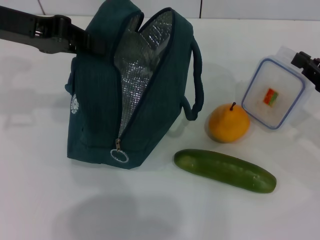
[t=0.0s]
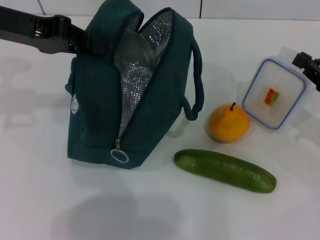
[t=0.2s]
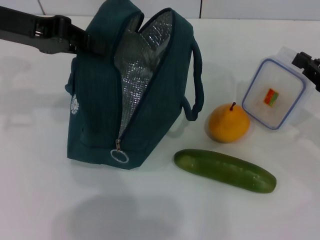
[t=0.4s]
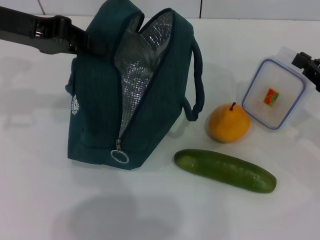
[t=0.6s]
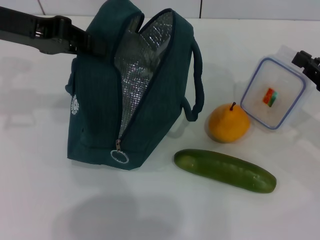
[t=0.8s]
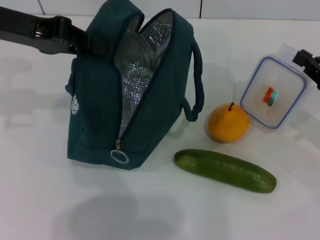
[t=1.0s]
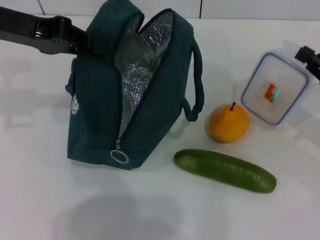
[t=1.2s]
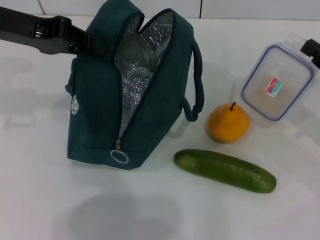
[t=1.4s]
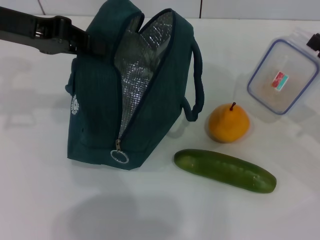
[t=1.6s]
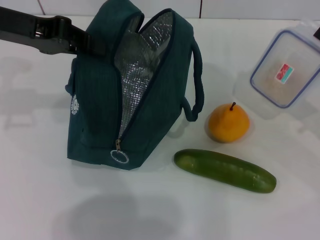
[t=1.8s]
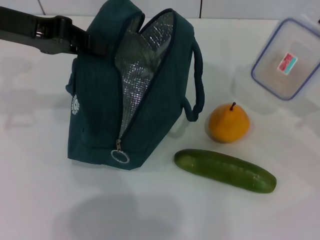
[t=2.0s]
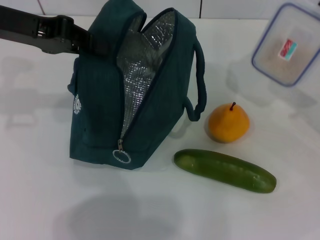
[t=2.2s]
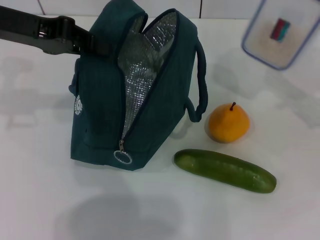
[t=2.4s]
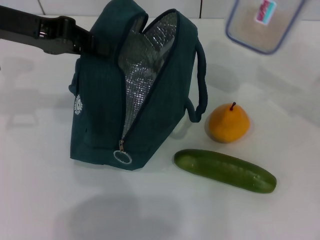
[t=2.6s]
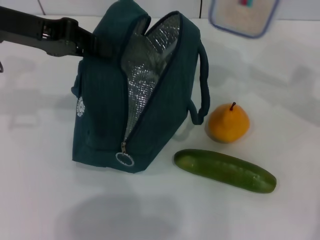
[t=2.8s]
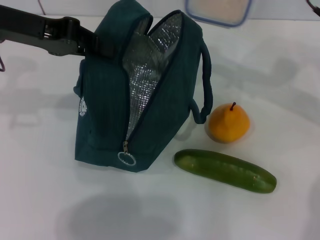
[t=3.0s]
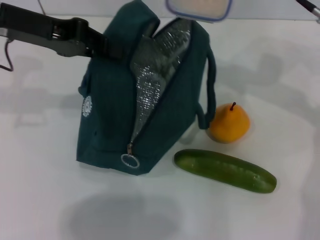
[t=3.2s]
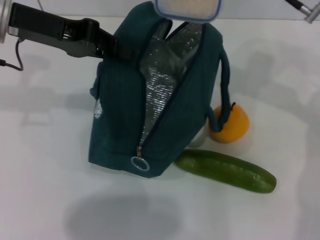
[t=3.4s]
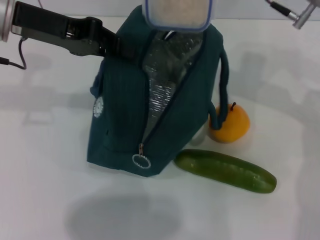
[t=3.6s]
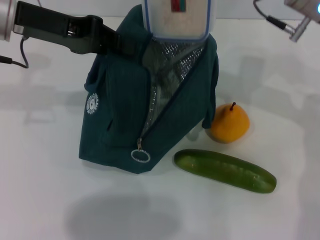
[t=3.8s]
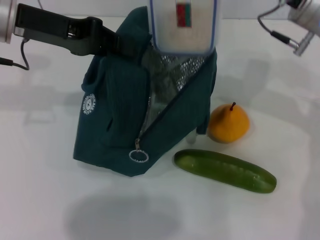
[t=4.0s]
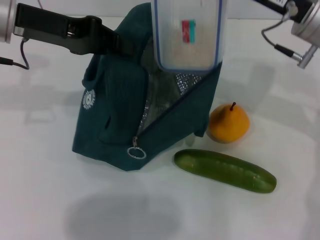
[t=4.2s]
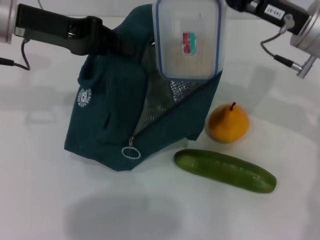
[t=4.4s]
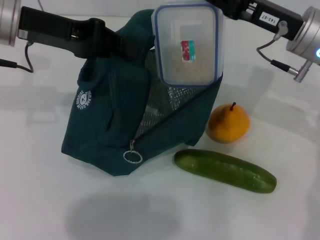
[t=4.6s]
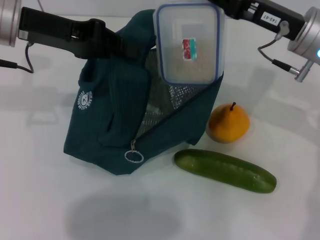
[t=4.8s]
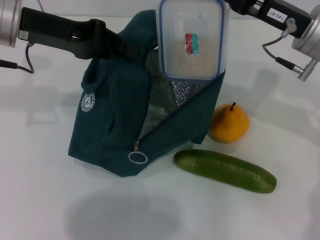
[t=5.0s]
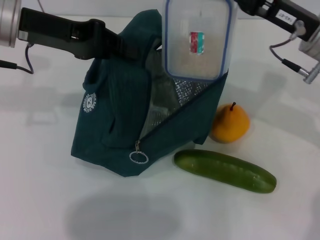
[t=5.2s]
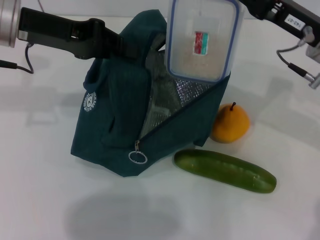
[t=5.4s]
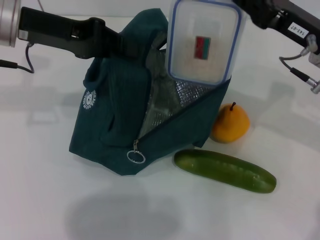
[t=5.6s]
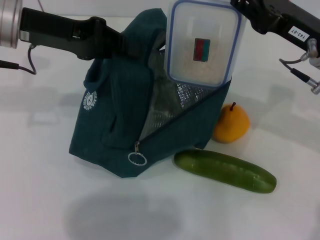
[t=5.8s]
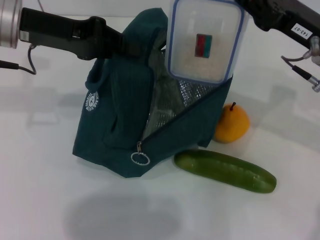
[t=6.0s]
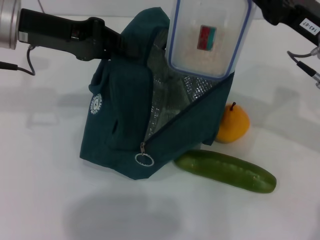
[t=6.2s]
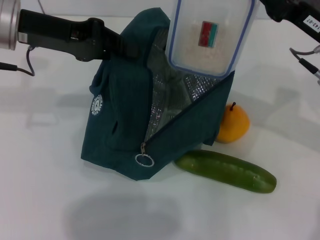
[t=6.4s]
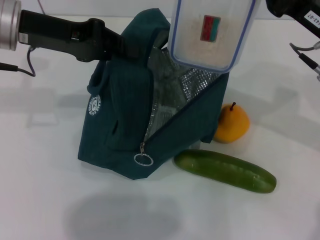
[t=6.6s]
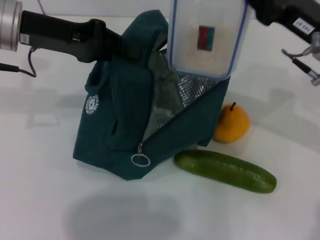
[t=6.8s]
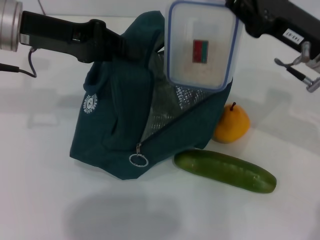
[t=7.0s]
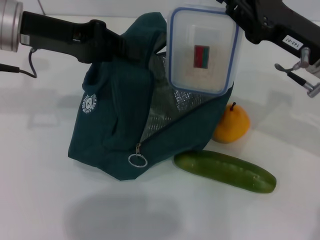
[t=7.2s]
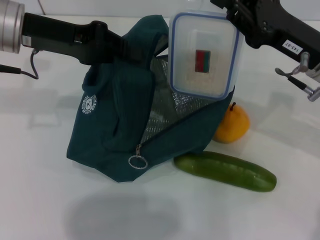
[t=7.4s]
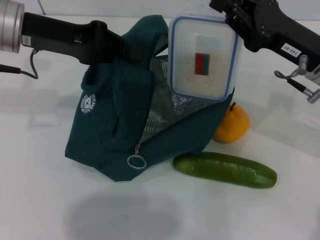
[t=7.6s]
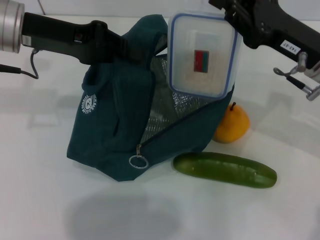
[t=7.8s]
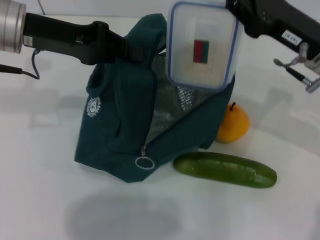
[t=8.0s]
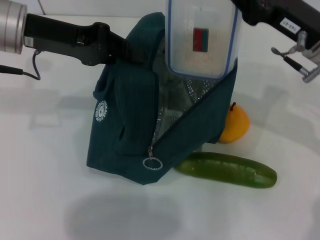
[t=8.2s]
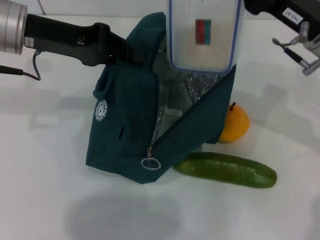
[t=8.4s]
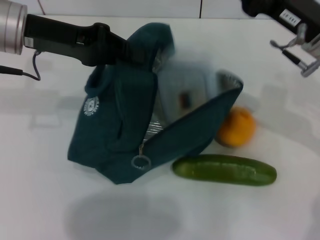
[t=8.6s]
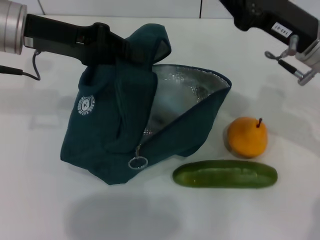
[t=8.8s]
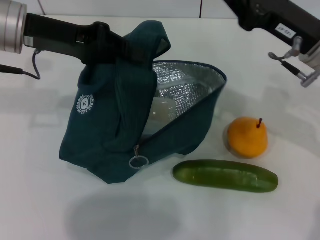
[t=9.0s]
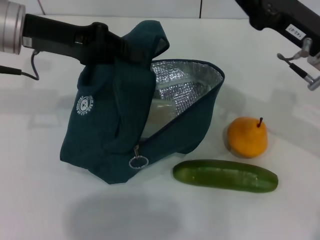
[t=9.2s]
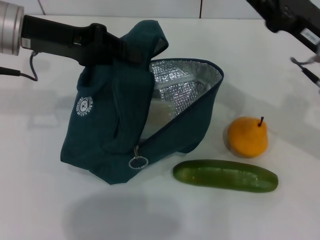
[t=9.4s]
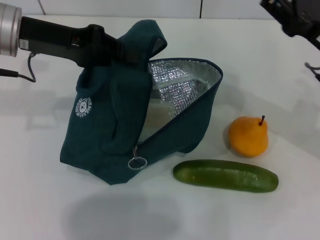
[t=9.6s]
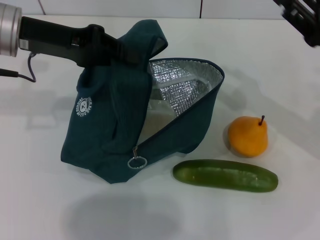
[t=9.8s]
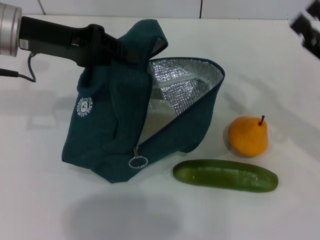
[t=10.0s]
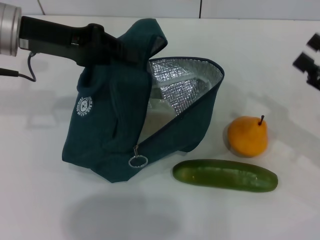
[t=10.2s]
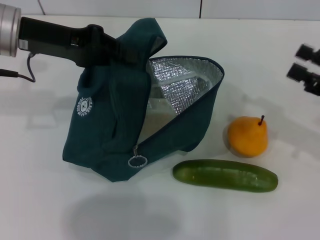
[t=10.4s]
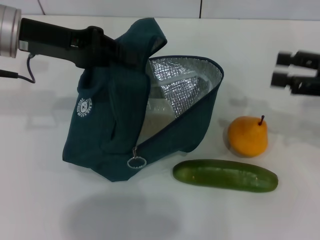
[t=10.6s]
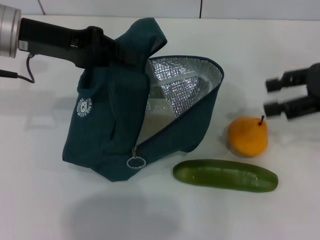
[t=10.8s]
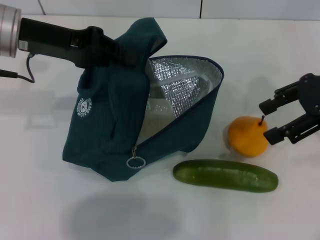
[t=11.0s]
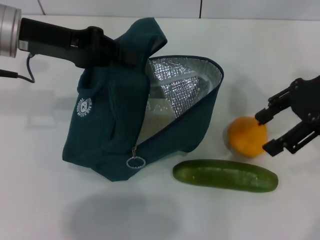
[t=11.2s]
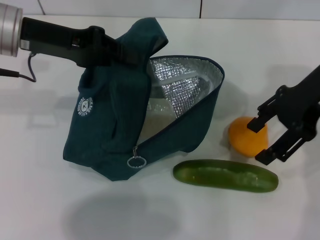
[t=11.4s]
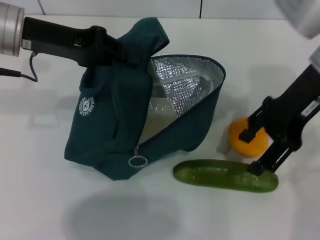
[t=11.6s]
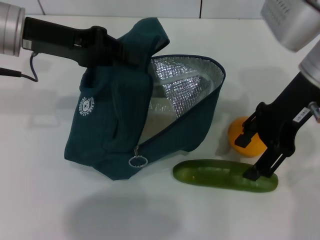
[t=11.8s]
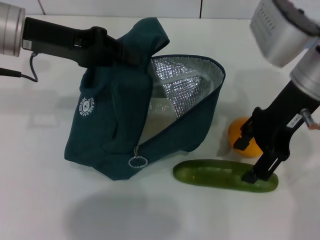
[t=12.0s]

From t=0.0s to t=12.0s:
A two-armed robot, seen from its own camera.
Step, from t=0.0s to t=9.6s: Place the lunch box into the lunch bag with your right hand.
From t=0.0s to t=1.6s: There are only small adjustments of the grippers.
From t=1.6s to t=3.0s: The right gripper shifts approximately 20 cm upward, to the left and forward.
From t=3.0s to t=4.4s: The right gripper shifts by roughly 5 cm.
From t=4.4s to t=6.0s: The grippers move only a little.
From t=6.0s to t=7.6s: The grippers make only small movements.
From t=9.0s to t=10.4s: The right gripper goes approximately 15 cm to the right and backward, and opens.
From t=10.4s to t=12.0s: The right gripper heads to the left and upward, covering approximately 20 cm.

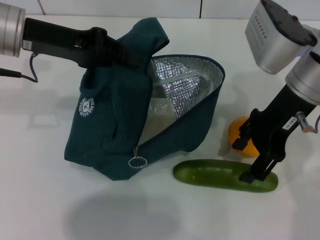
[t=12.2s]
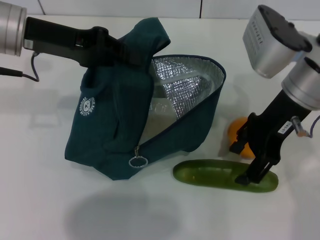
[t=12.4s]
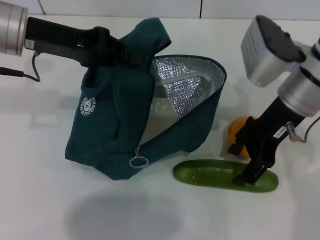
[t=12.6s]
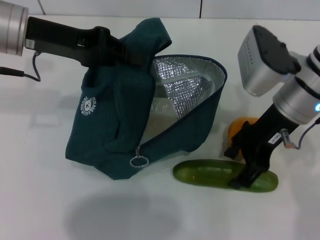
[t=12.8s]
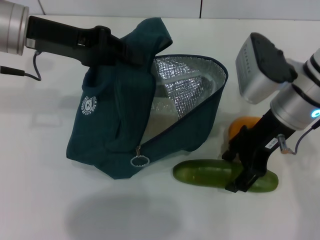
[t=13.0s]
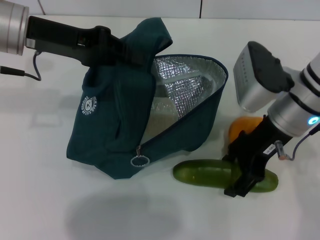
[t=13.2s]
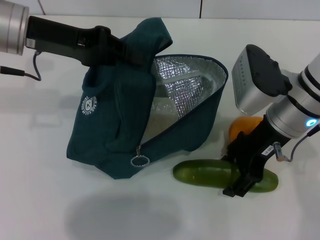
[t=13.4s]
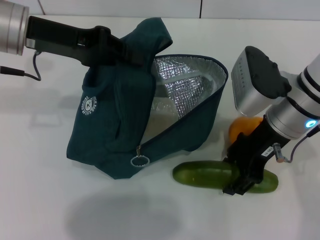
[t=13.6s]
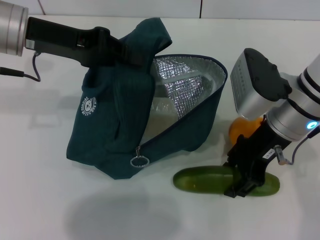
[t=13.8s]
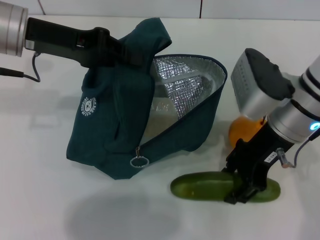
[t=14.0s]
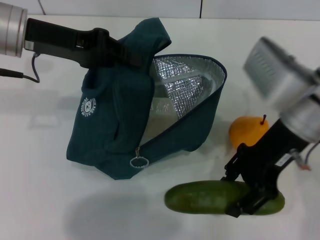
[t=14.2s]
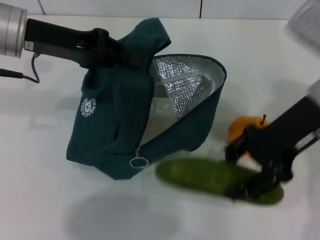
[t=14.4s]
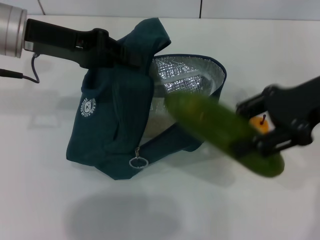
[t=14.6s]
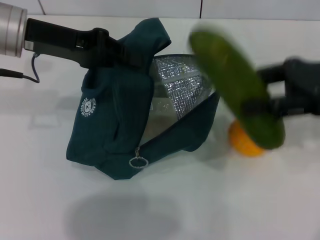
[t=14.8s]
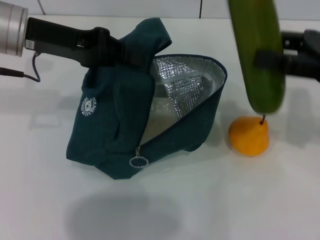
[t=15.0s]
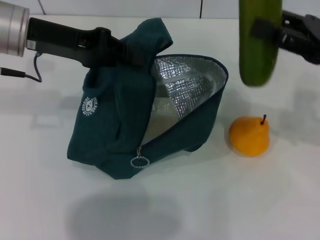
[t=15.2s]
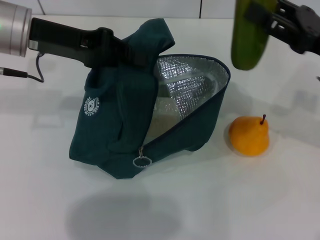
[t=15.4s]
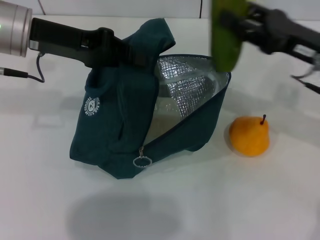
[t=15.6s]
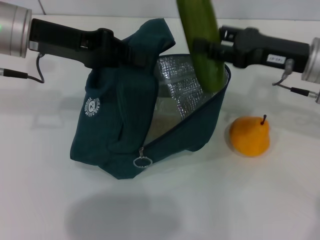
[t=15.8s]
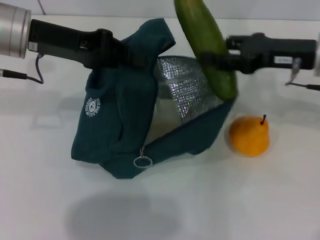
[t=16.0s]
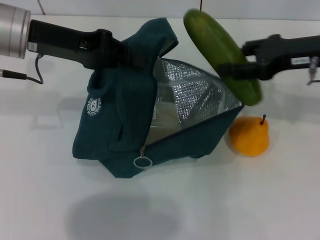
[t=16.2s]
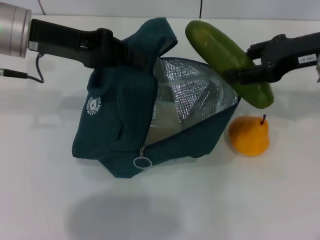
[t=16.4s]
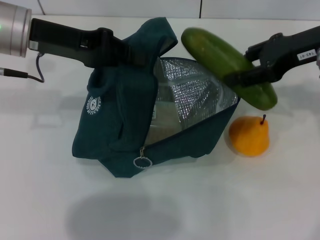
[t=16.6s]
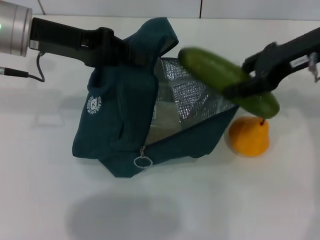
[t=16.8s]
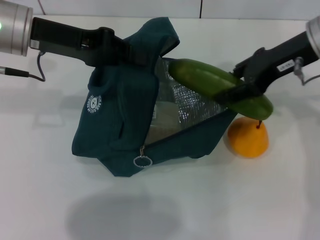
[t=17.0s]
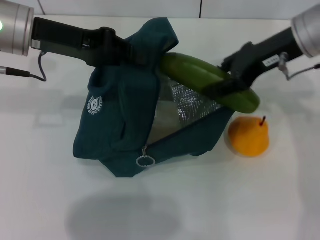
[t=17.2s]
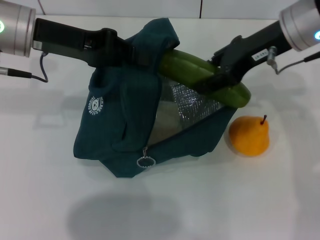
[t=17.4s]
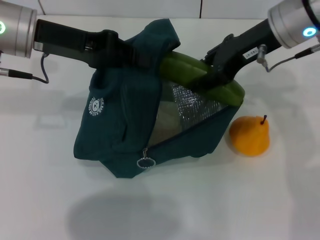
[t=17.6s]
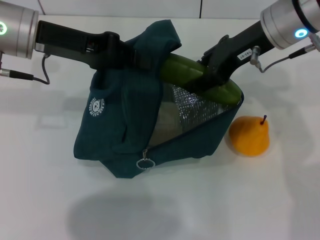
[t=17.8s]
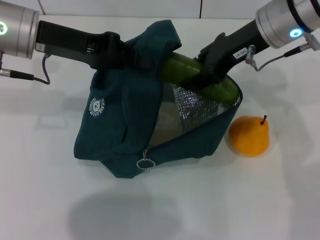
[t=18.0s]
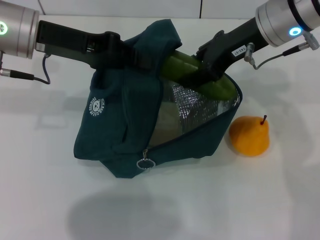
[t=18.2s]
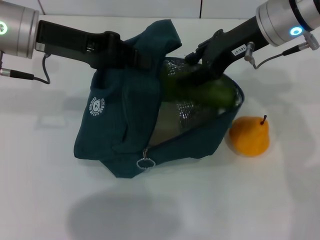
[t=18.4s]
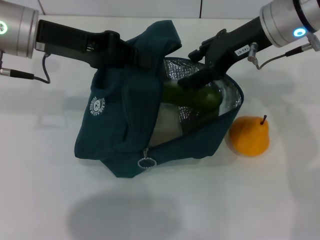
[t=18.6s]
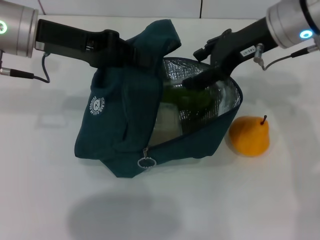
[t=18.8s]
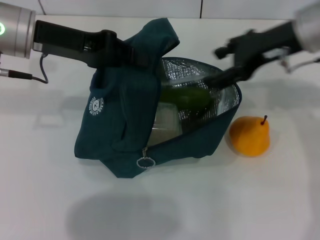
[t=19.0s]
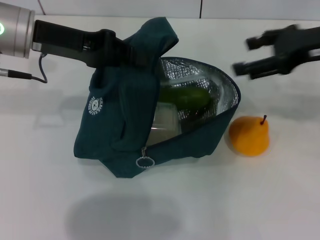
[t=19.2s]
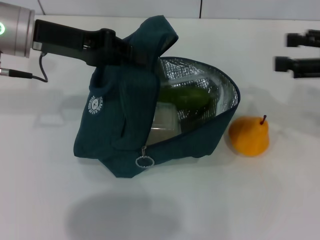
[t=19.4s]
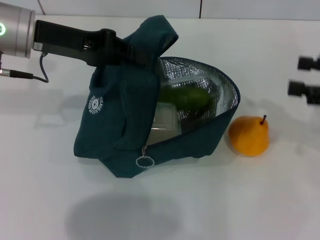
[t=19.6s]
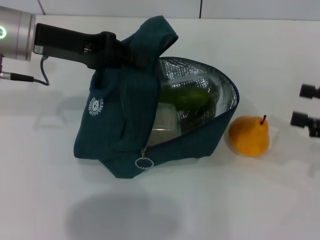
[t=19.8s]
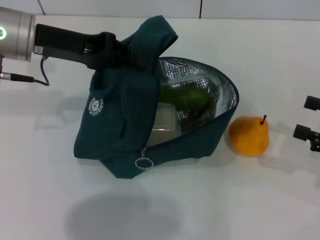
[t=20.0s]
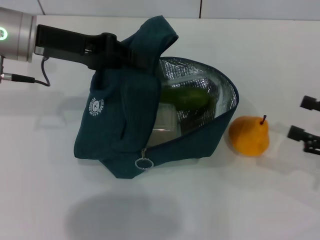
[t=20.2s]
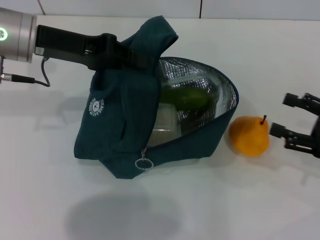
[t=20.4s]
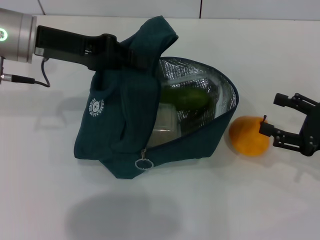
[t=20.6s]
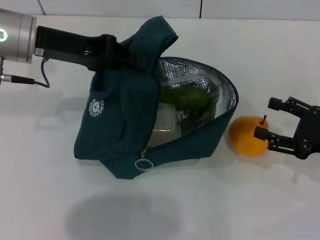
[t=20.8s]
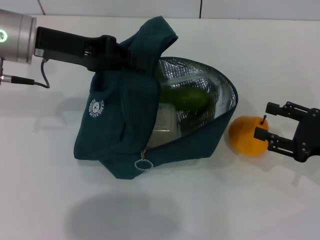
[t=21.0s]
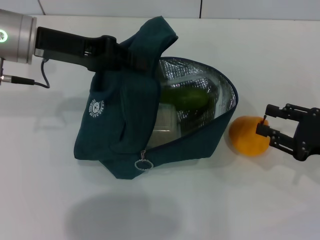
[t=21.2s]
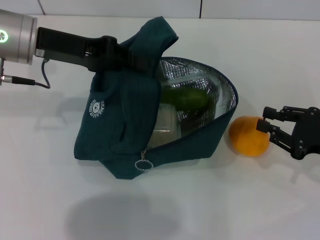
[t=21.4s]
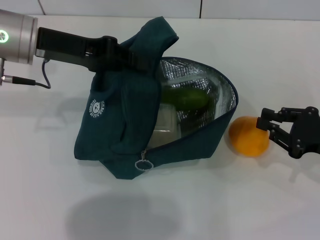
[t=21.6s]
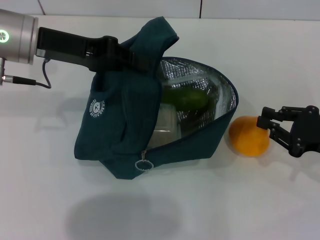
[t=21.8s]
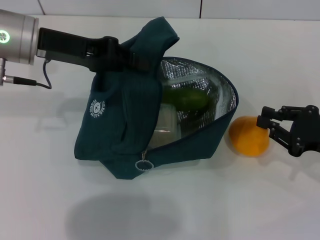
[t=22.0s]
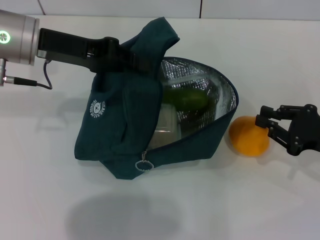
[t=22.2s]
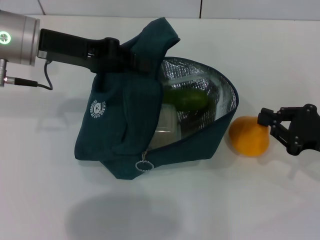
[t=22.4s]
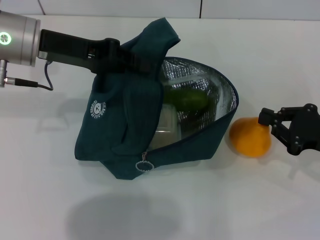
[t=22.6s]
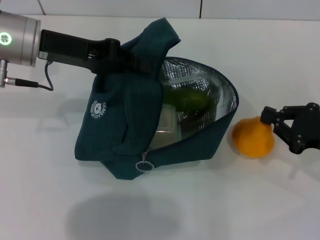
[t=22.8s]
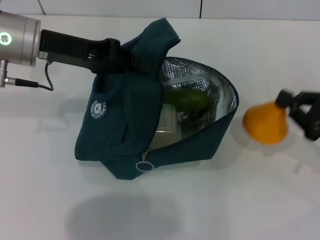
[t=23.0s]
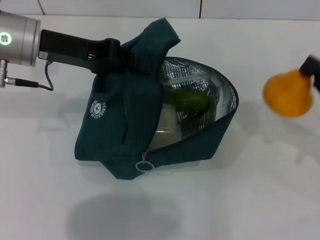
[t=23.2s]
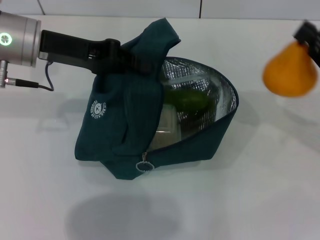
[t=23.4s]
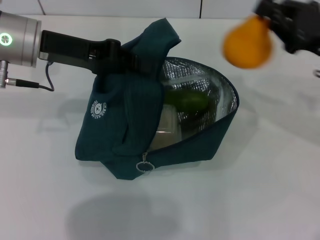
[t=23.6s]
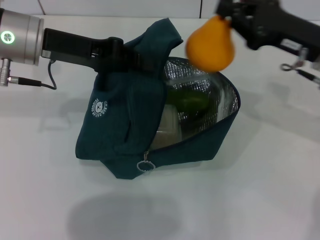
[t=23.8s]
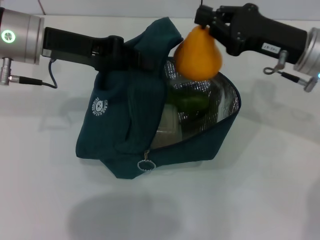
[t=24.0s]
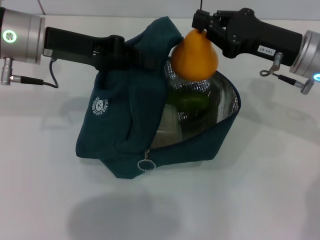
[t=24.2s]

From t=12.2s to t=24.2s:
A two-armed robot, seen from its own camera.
Step, from t=13.8s to t=19.2s: Put the cucumber into the lunch bag with your right hand.
Step, from t=19.4s to t=22.6s: Grab the pear with your right hand.
From t=12.2s to t=13.8s: The right gripper heads downward, covering about 5 cm.
From t=13.8s to t=15.2s: The right gripper is displaced to the right by about 10 cm.
From t=15.2s to t=16.6s: The right gripper heads upward and forward, covering some 5 cm.
From t=16.6s to t=18.2s: The right gripper moves to the left, approximately 10 cm.
From t=18.2s to t=19.8s: The right gripper is displaced to the right, backward and downward by about 25 cm.
From t=19.8s to t=21.2s: The right gripper travels downward by some 5 cm.
From t=21.2s to t=22.6s: The right gripper closes.
From t=22.6s to t=24.2s: The right gripper is displaced to the left, forward and upward by some 15 cm.
